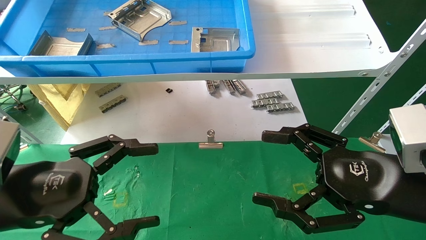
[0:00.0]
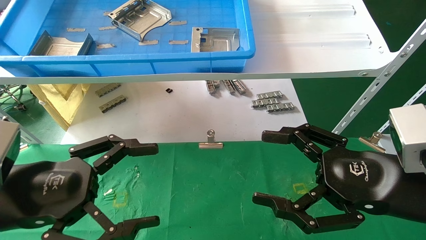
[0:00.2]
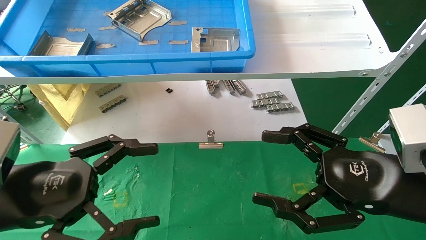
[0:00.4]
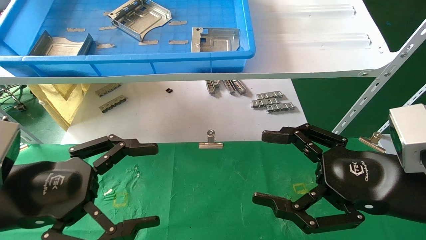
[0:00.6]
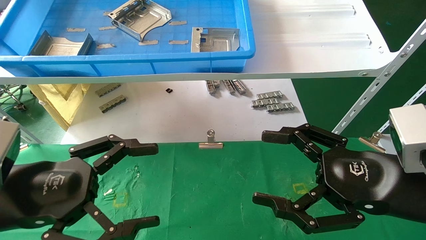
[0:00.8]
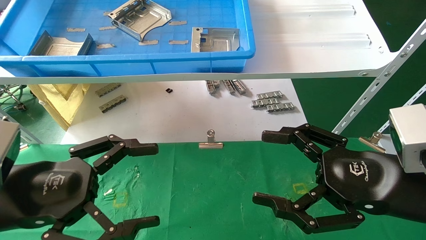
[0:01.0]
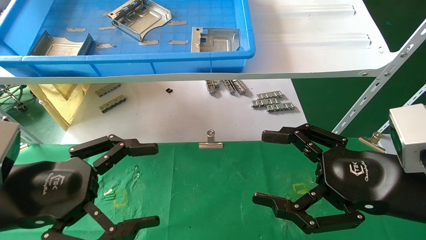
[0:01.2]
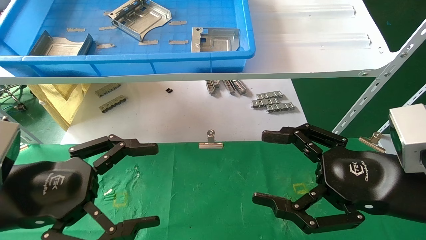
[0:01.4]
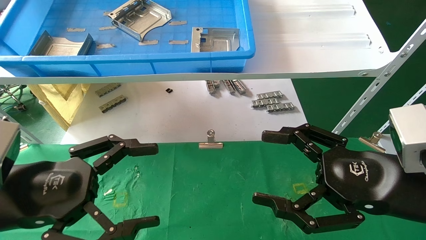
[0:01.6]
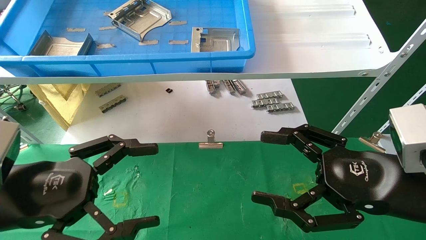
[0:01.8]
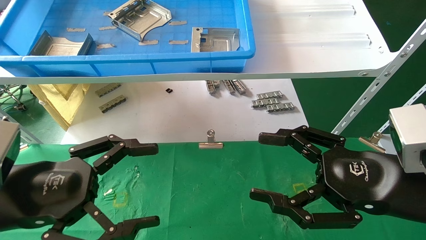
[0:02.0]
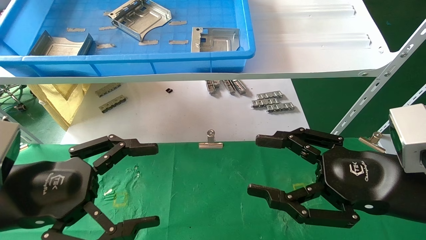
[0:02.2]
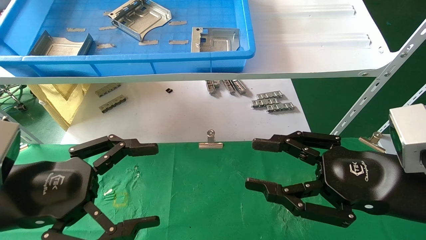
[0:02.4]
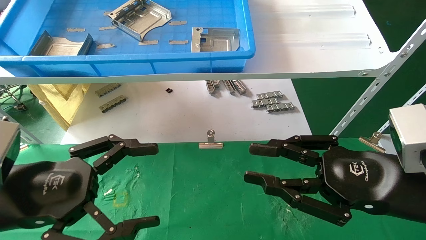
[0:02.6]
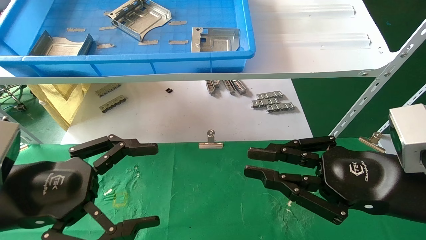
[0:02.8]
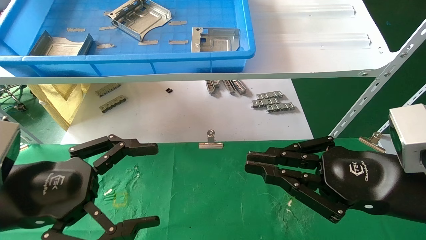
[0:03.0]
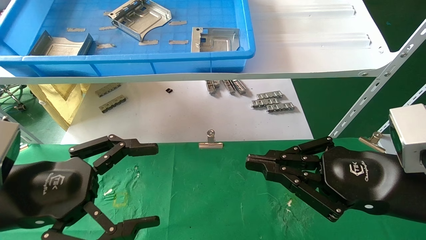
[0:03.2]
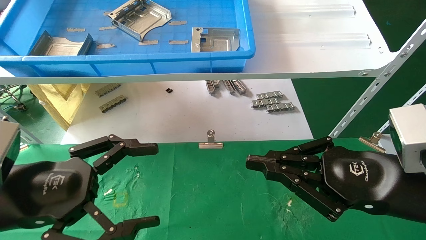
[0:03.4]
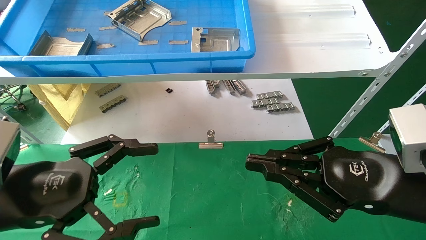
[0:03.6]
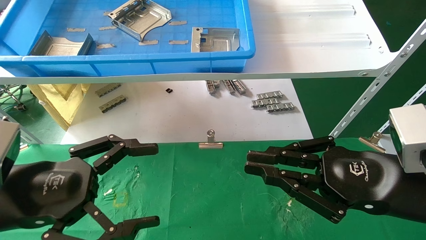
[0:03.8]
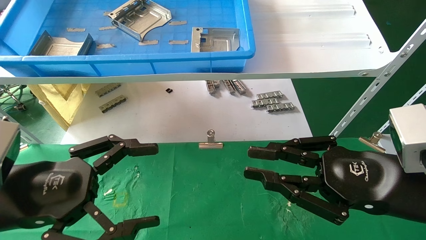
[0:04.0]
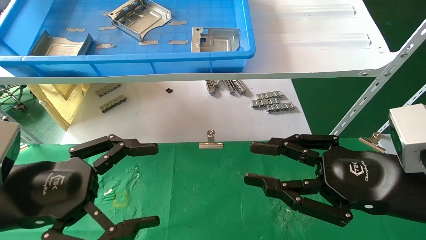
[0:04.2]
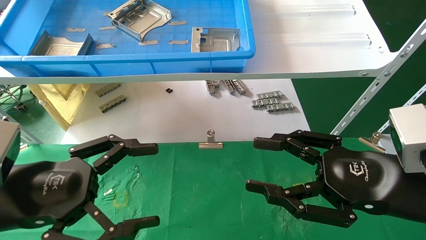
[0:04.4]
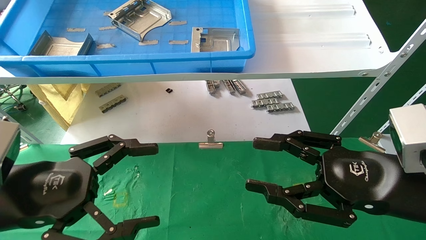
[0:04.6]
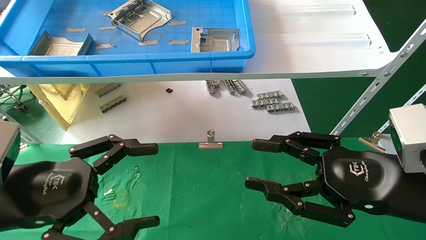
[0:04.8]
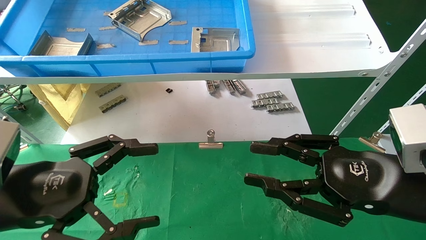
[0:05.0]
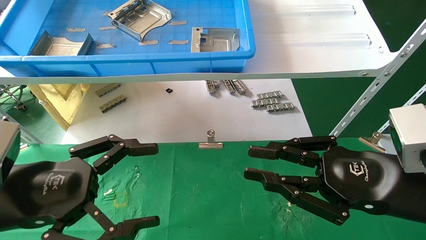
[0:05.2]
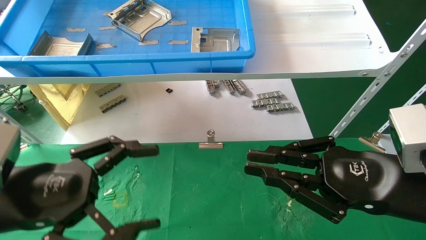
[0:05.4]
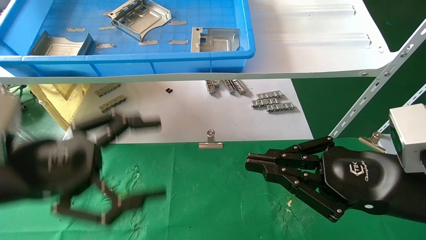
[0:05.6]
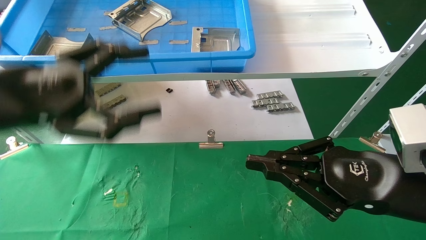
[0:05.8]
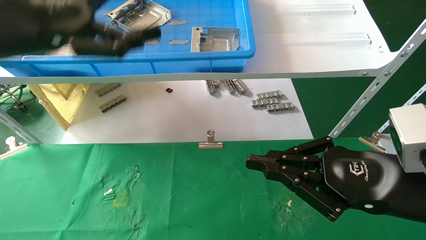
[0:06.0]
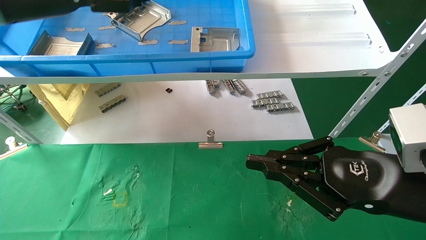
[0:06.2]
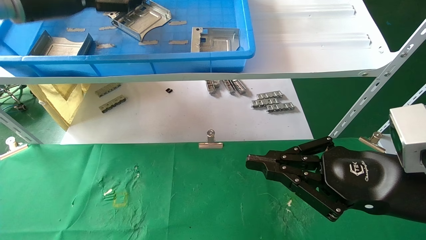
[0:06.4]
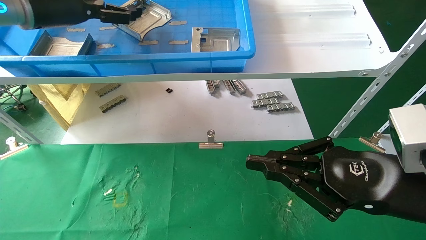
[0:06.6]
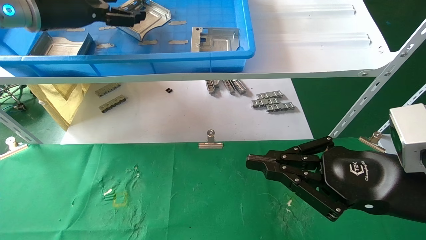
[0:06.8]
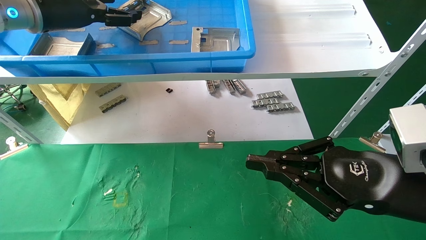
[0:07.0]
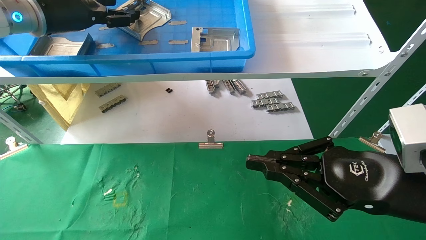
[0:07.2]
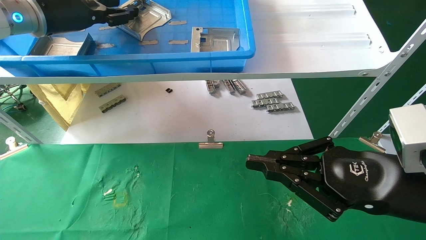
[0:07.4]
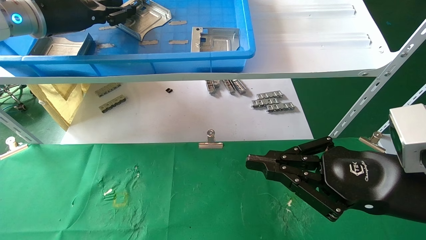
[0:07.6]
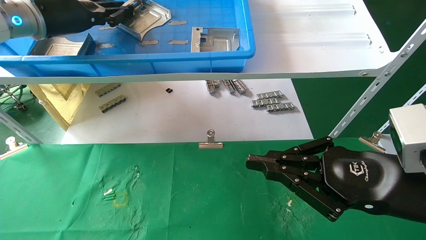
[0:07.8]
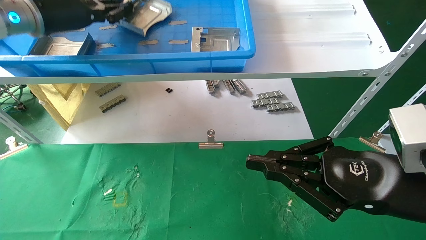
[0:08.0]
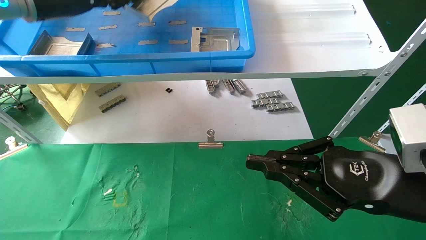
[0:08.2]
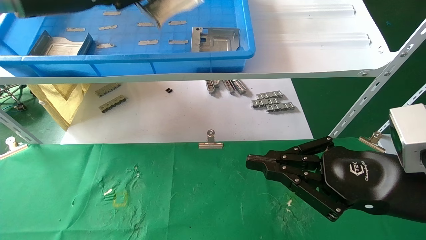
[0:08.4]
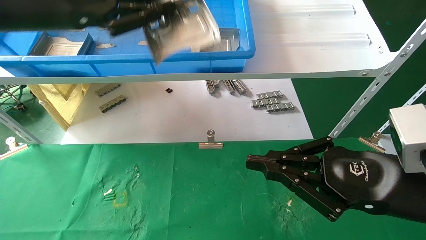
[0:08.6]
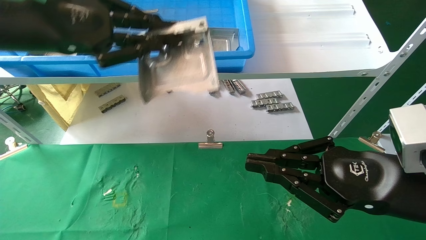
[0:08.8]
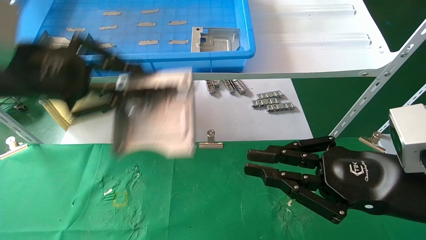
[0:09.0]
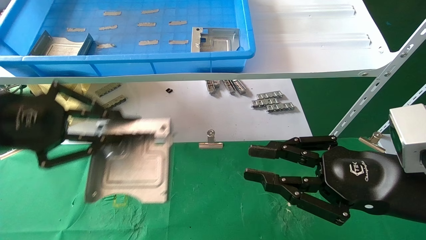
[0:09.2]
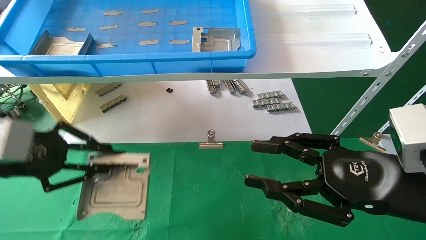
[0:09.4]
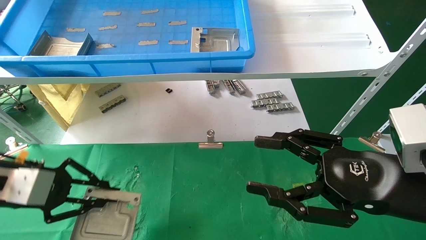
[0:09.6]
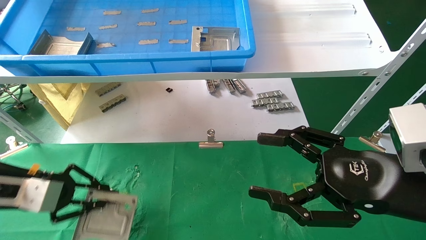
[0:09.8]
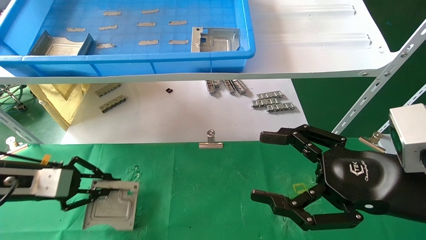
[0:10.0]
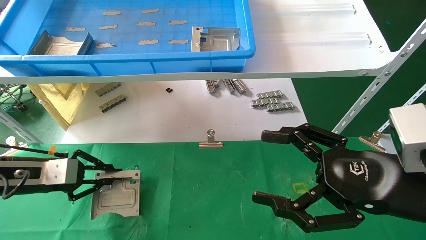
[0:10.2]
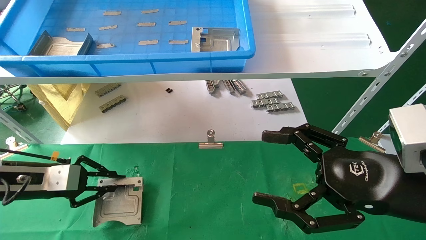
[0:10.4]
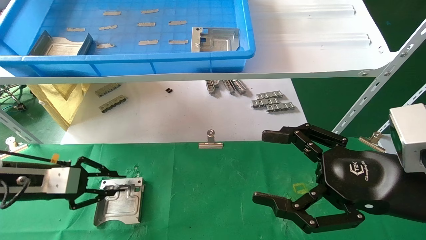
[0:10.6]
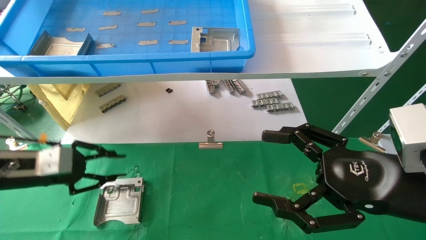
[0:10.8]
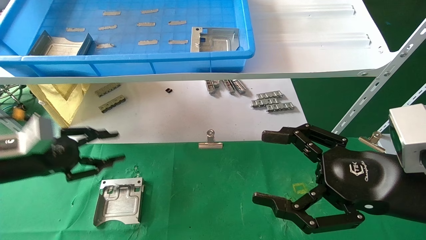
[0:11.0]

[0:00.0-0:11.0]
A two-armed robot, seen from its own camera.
Task of the whole recording: use the mechanical arm to pick up the parts and place them on the table.
Step, 0:06.0 to 0:08.0: Pick up the hard drive bracket from the feeding area.
Step, 0:08.2 to 0:10.8: Place the hard drive bracket into the box.
0:00.0 to 0:01.6: Both grippers stay about where they are.
0:01.6 to 0:03.2: The right gripper closes its fingers.
0:03.2 to 0:04.8: The right gripper opens.
0:04.8 to 0:06.2: The right gripper closes, while the left gripper shifts approximately 25 cm upward and forward.
0:06.2 to 0:07.8: The left gripper shifts approximately 5 cm forward, and closes its fingers.
0:07.8 to 0:09.4: The left gripper is displaced downward and backward by approximately 25 cm; the right gripper opens its fingers.
0:09.4 to 0:11.0: The right gripper opens its fingers, while the left gripper travels downward and forward by roughly 10 cm.

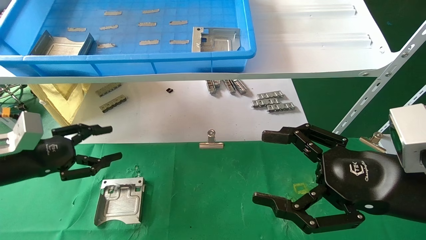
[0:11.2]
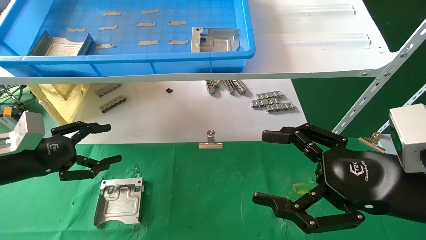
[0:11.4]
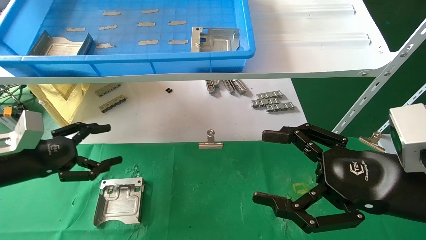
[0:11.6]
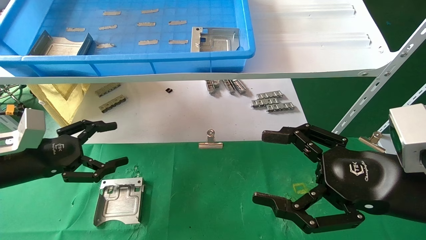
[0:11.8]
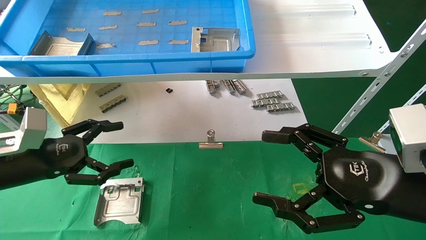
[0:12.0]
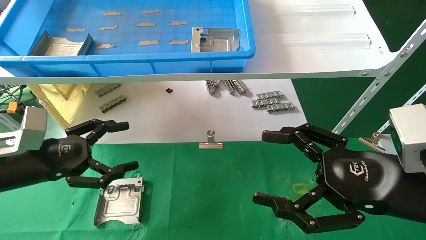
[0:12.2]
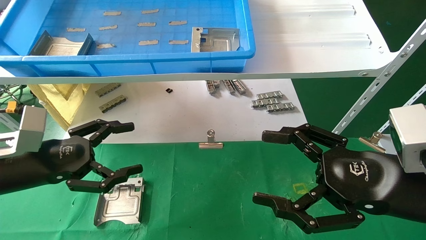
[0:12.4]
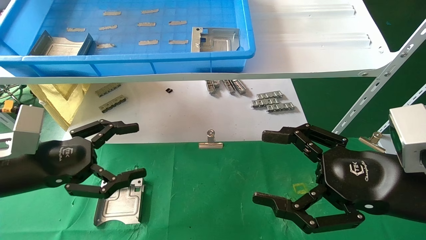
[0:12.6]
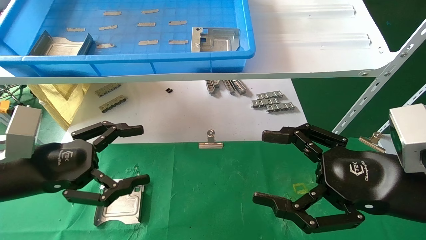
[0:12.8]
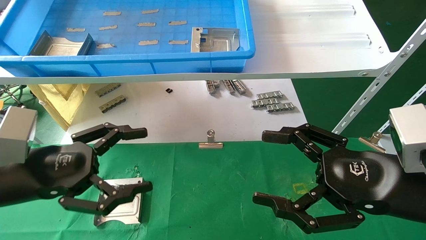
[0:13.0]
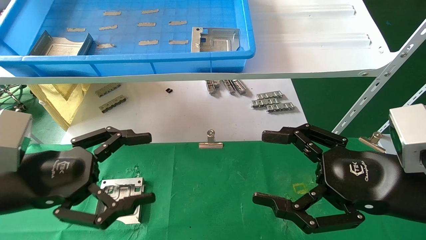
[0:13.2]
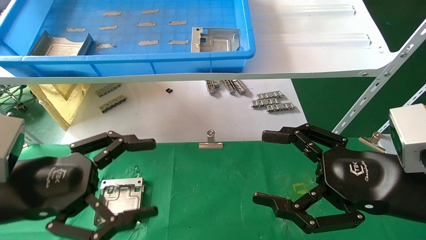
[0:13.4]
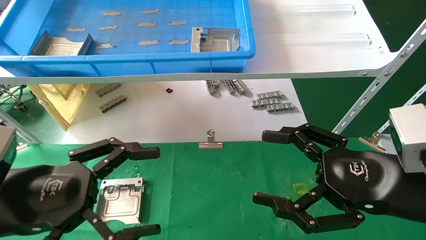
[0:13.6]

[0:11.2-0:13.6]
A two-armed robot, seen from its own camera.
Task of the whole recording: use the mechanical arm to pick up the parts and place them on the table.
0:11.2 to 0:12.4: The left gripper is displaced to the right by about 5 cm, and opens its fingers.
0:12.4 to 0:13.6: The left gripper goes some 10 cm backward and to the right.

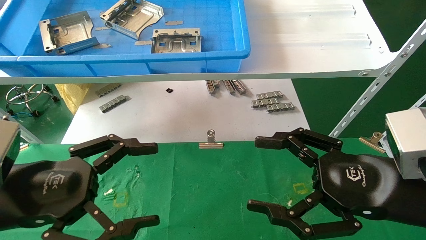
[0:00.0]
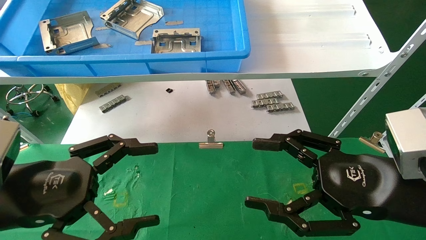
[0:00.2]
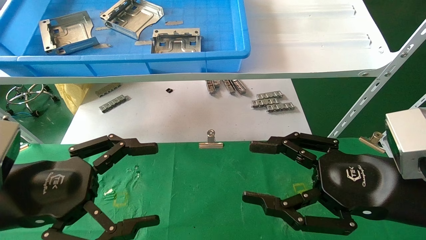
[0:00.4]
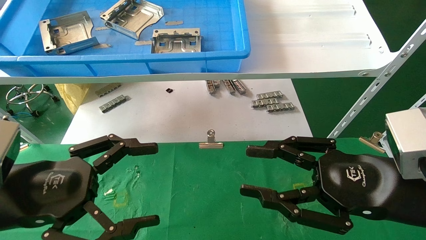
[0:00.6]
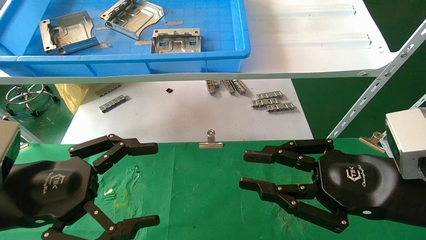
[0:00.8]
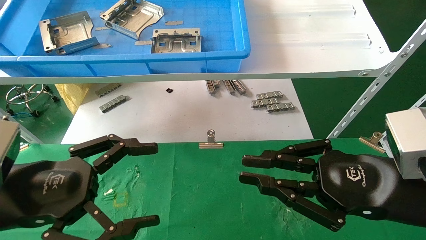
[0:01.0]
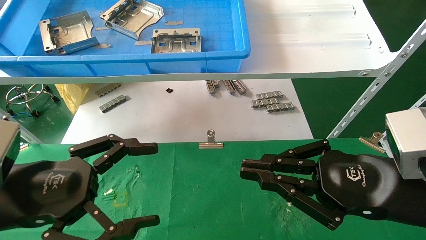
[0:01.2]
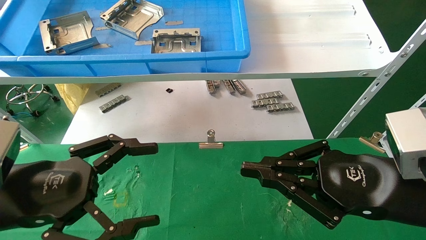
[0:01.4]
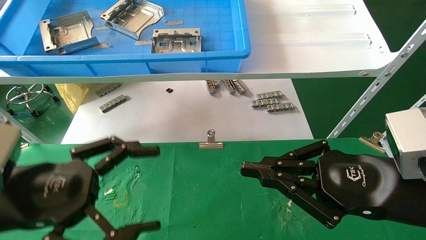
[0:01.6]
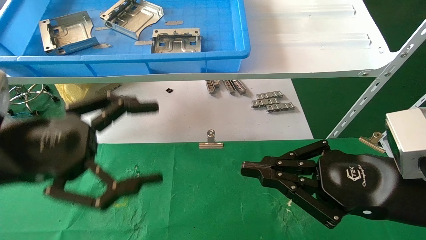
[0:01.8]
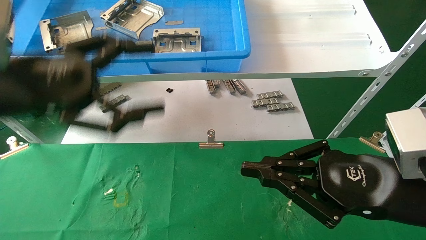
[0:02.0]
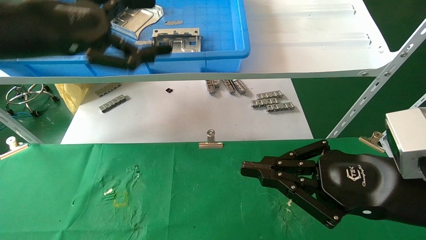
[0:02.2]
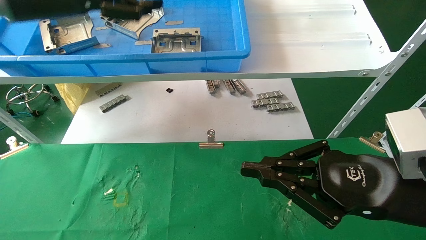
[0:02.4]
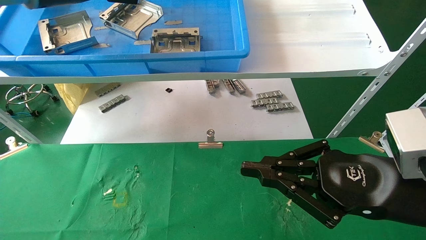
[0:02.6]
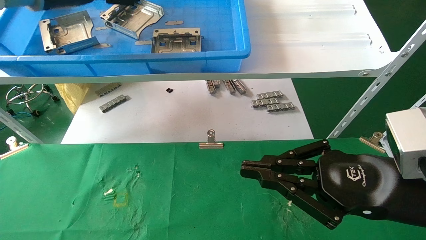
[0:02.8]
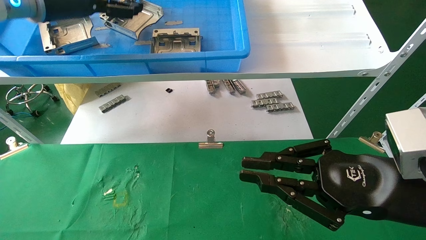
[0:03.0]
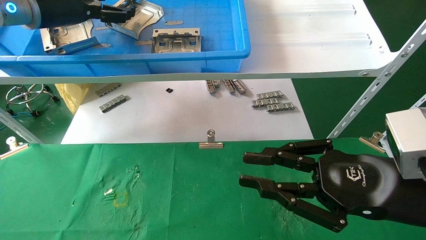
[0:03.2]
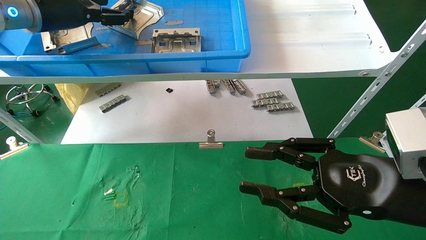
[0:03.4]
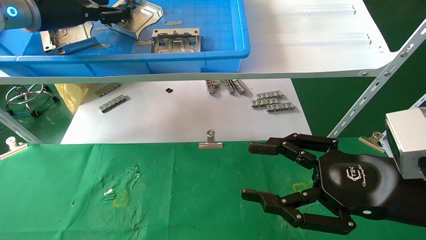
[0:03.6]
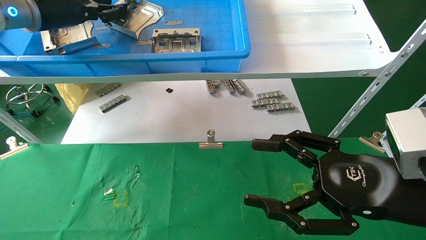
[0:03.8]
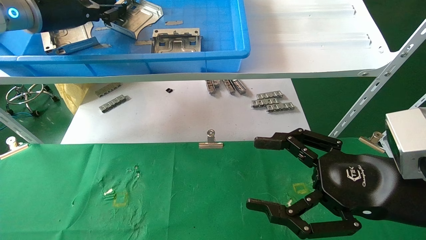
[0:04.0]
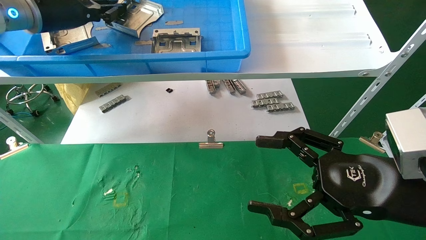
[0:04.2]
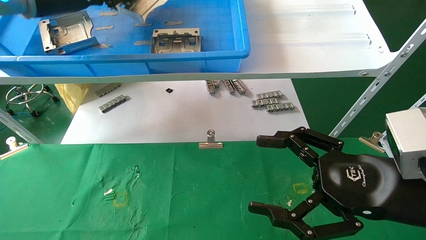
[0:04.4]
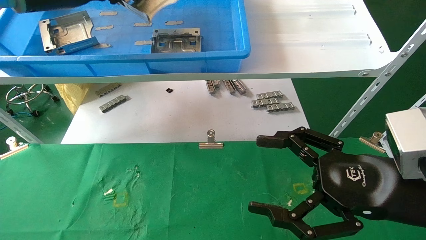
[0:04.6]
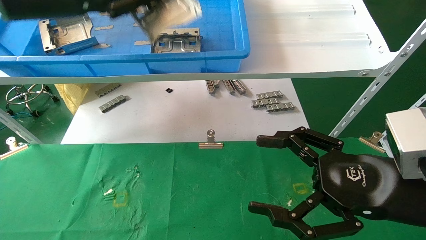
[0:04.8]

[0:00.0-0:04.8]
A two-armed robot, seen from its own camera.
Task of the whole recording: use the mechanical arm to pick up the parts and place them on the table.
Step, 0:01.8 to 0:04.4: Pick up the hard drive bracket from the feeding area.
0:00.0 to 0:01.6: The right gripper closes.
0:01.6 to 0:03.2: The left gripper goes roughly 30 cm forward and upward.
0:03.2 to 0:04.8: The right gripper opens its fingers. The left gripper is displaced backward by roughly 10 cm, and closes up.
